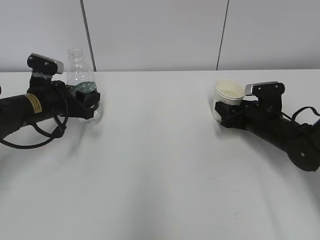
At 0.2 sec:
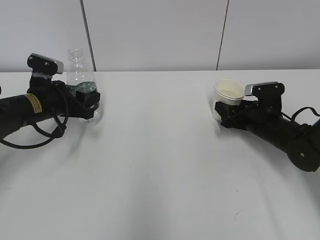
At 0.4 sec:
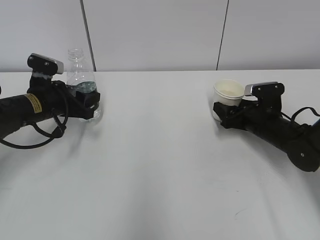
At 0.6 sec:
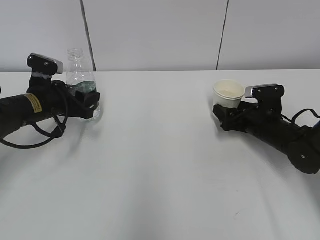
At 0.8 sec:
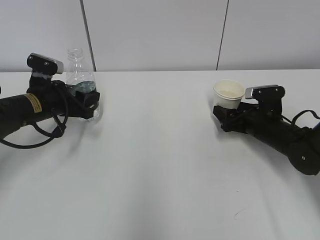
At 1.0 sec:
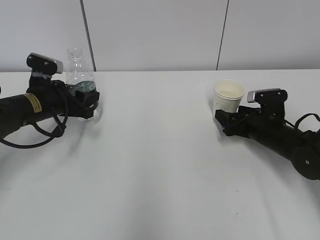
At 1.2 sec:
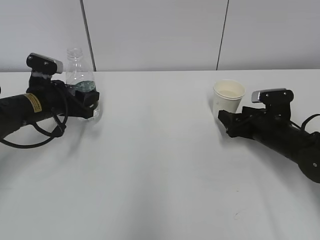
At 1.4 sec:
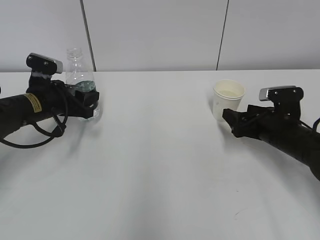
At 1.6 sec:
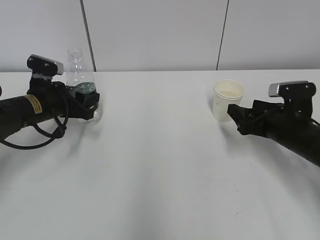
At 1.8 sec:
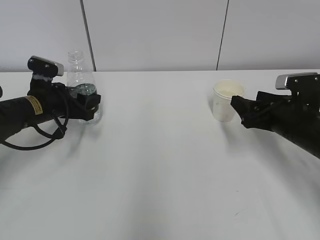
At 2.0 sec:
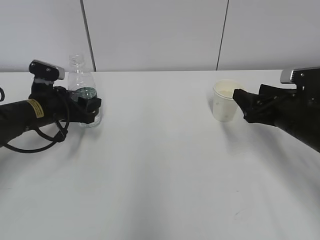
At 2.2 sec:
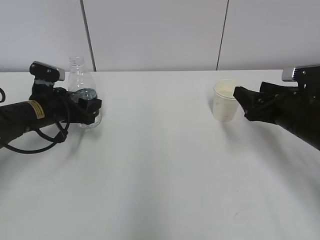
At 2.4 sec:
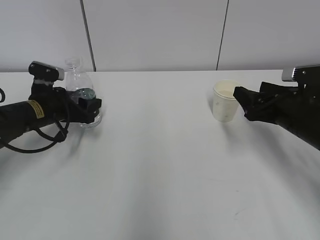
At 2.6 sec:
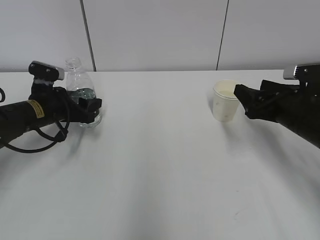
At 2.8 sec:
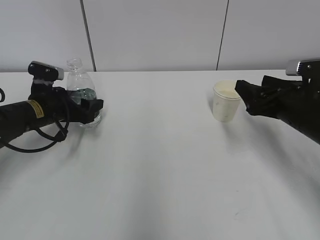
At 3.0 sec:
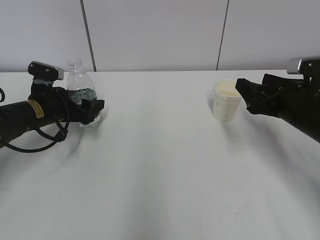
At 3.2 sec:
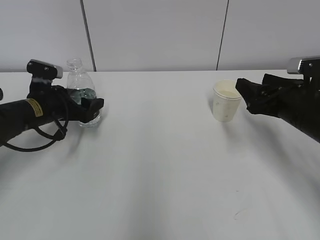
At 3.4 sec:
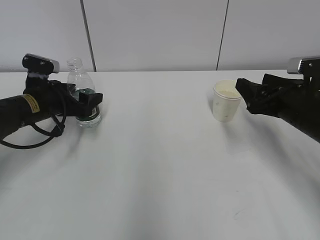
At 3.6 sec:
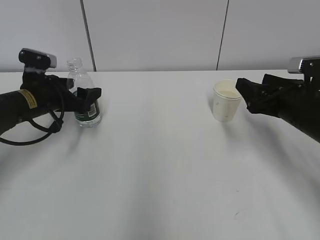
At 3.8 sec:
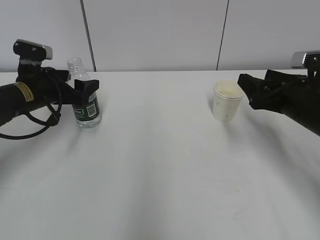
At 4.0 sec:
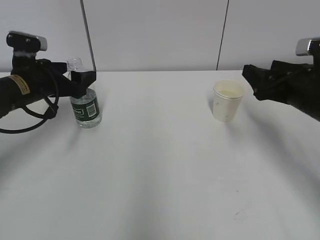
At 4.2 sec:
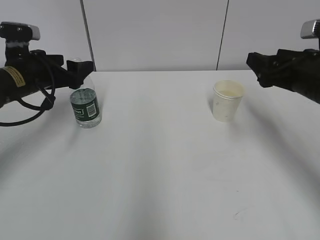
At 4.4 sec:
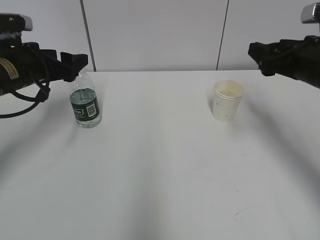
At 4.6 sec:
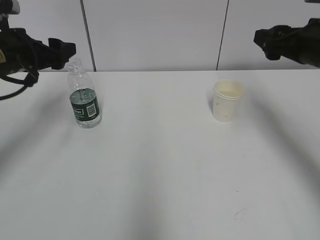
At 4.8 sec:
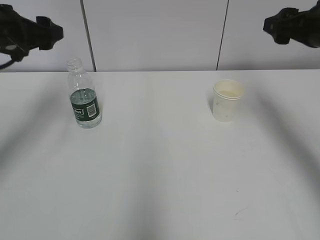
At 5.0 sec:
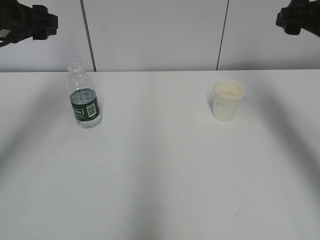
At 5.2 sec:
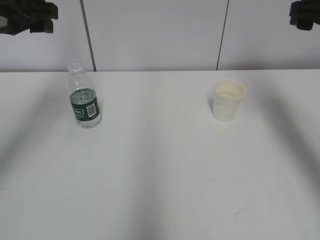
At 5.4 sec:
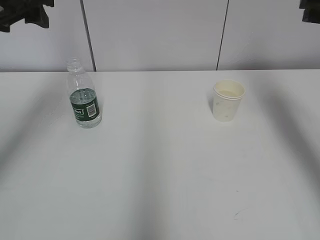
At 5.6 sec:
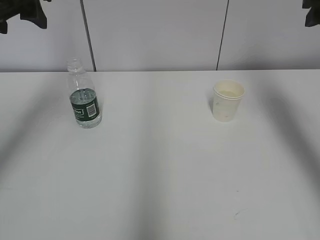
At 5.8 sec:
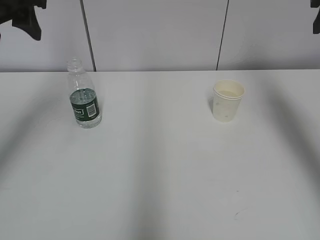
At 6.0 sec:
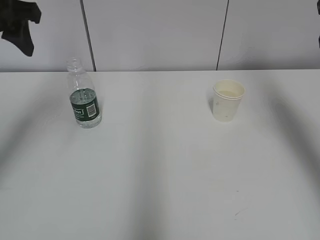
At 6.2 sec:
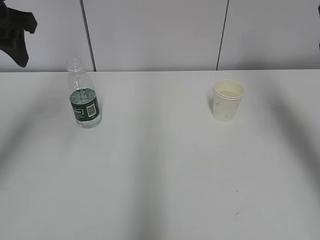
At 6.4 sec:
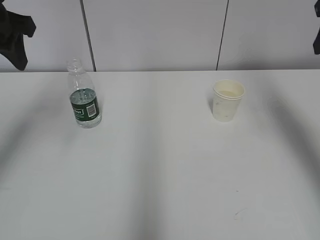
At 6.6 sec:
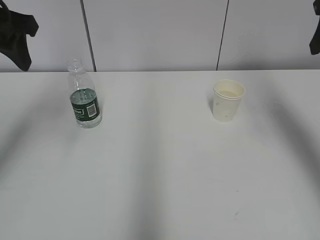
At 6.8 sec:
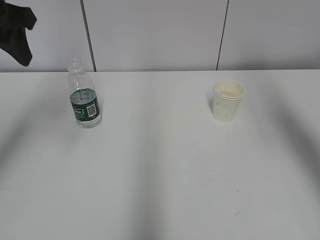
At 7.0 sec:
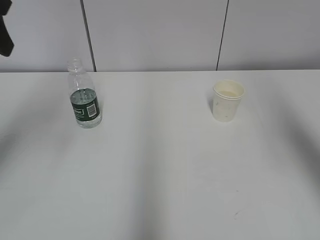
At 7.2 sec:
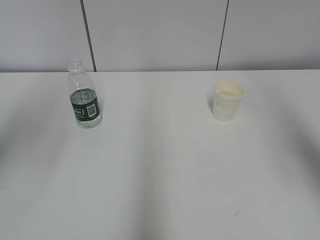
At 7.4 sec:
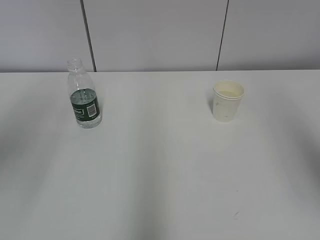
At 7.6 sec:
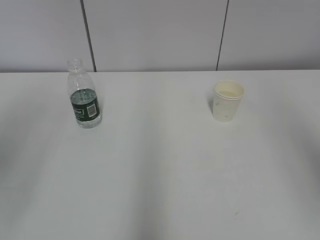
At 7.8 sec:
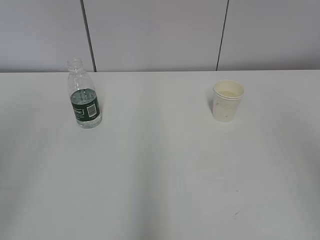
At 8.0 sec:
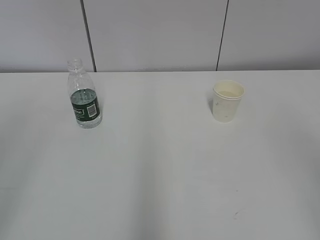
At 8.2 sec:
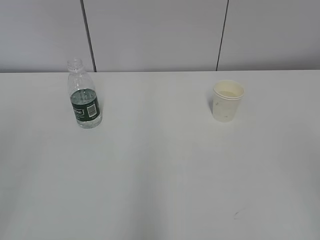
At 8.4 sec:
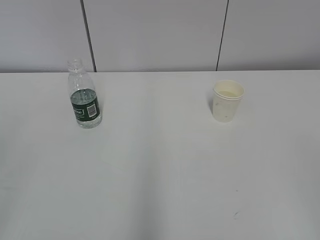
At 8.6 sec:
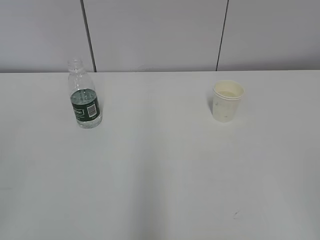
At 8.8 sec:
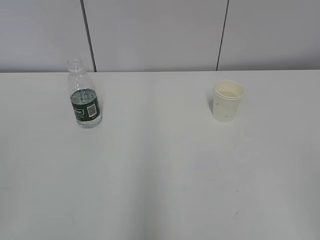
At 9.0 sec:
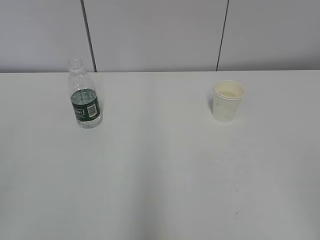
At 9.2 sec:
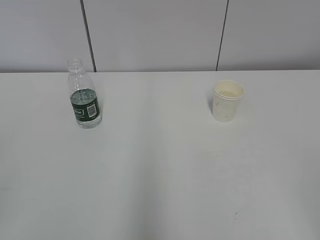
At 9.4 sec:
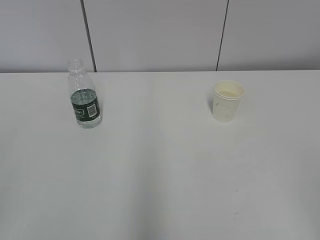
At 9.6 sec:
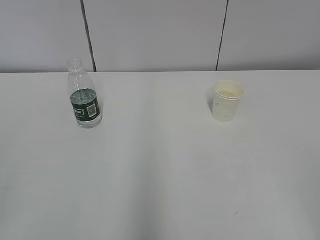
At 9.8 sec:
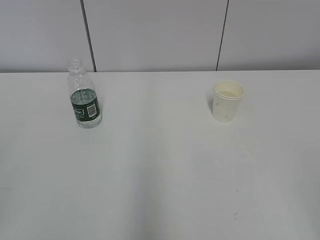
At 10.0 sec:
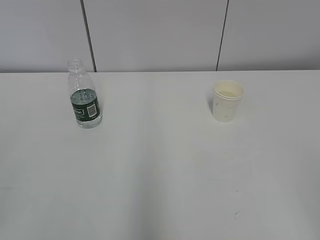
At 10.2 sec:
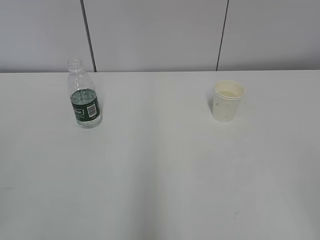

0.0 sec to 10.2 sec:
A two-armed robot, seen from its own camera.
0.0 sec to 1.4 sec: The right gripper moves some 5 cm, and opens.
1.4 sec to 3.0 sec: The left gripper opens its fingers; the right gripper moves upward, approximately 10 cm.
3.0 sec to 4.4 sec: The grippers both shift upward by roughly 10 cm.
4.4 sec to 5.8 sec: Both grippers travel together upward, approximately 15 cm.
5.8 sec to 7.2 sec: The two grippers go roughly 15 cm backward.
7.2 sec to 8.8 sec: The right gripper heads backward and downward, covering some 25 cm.

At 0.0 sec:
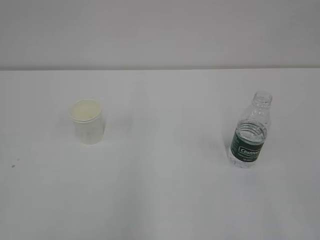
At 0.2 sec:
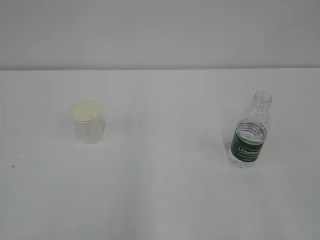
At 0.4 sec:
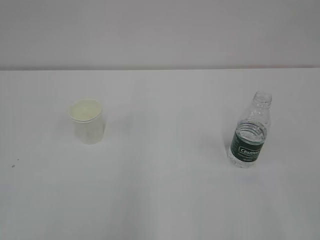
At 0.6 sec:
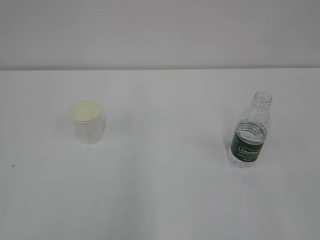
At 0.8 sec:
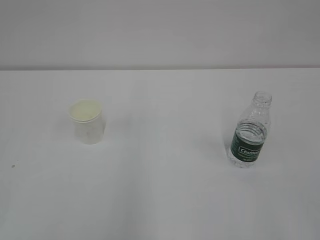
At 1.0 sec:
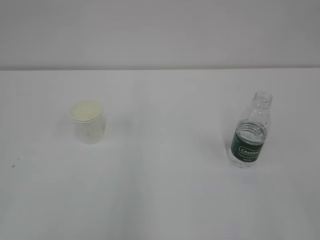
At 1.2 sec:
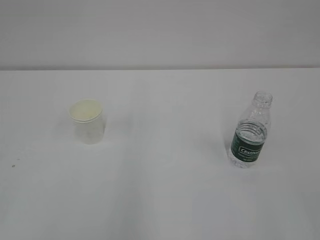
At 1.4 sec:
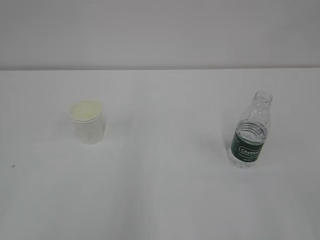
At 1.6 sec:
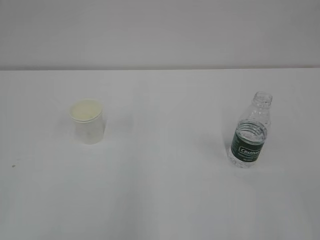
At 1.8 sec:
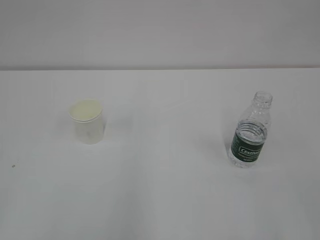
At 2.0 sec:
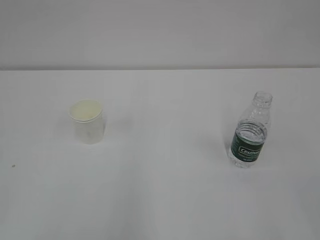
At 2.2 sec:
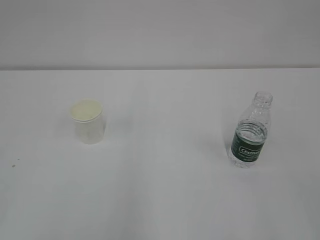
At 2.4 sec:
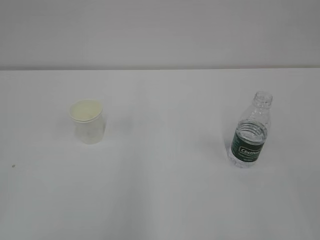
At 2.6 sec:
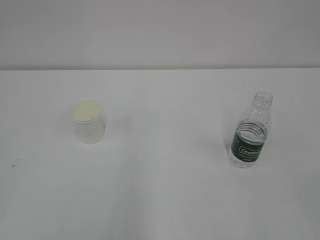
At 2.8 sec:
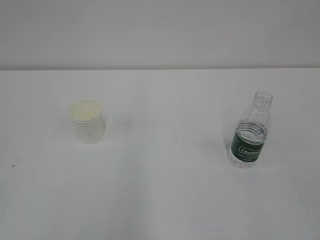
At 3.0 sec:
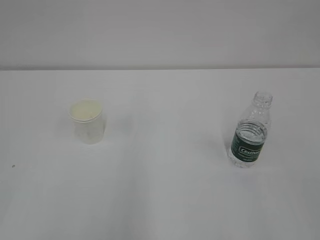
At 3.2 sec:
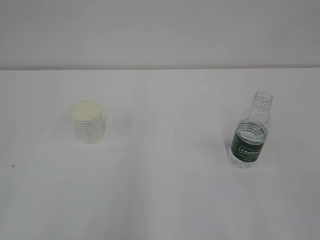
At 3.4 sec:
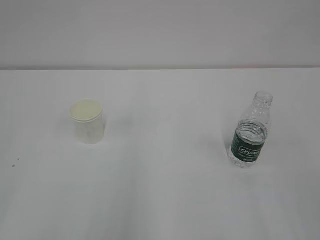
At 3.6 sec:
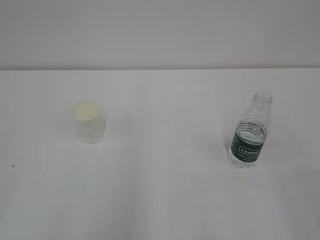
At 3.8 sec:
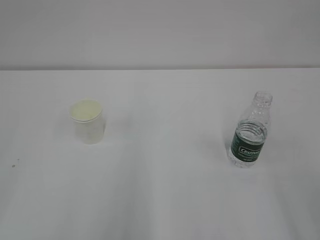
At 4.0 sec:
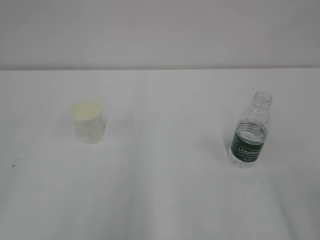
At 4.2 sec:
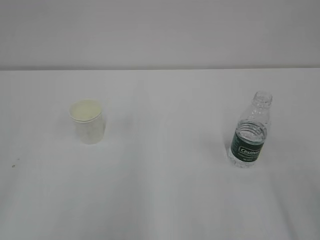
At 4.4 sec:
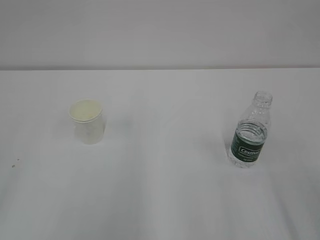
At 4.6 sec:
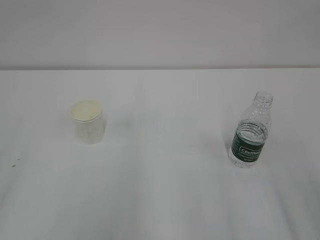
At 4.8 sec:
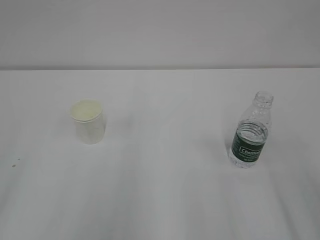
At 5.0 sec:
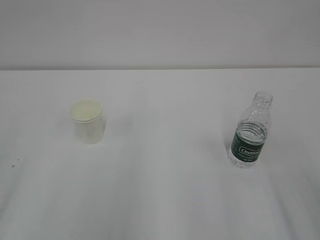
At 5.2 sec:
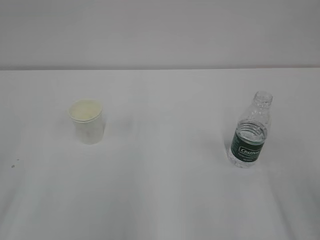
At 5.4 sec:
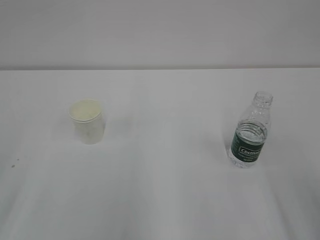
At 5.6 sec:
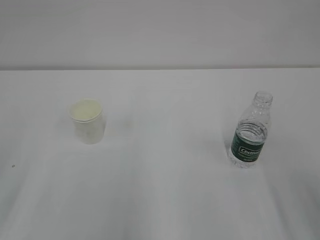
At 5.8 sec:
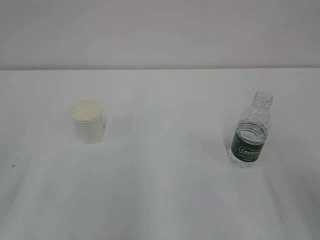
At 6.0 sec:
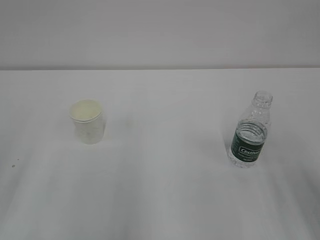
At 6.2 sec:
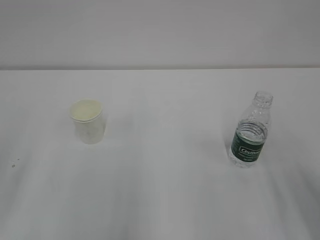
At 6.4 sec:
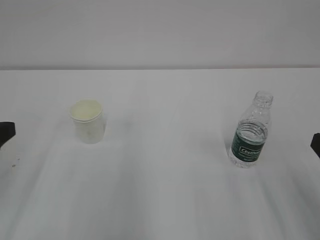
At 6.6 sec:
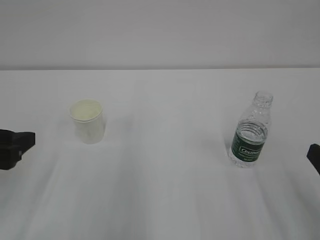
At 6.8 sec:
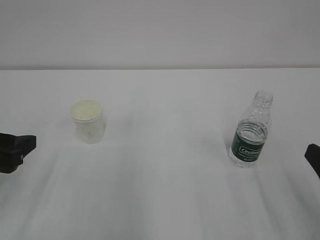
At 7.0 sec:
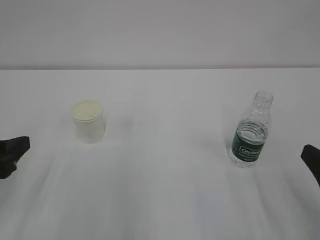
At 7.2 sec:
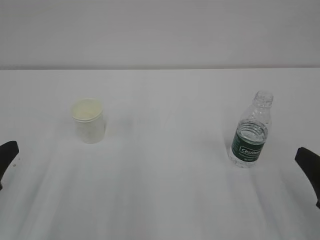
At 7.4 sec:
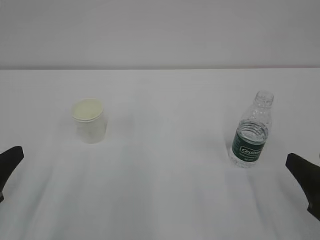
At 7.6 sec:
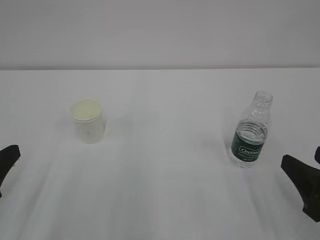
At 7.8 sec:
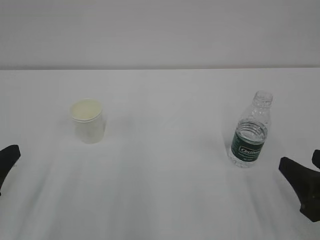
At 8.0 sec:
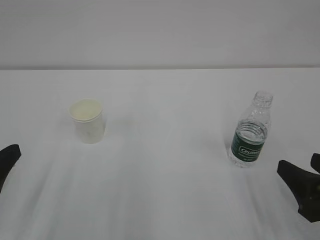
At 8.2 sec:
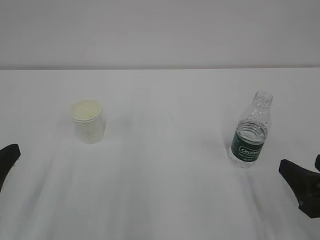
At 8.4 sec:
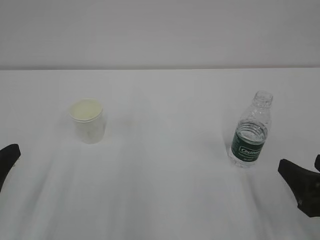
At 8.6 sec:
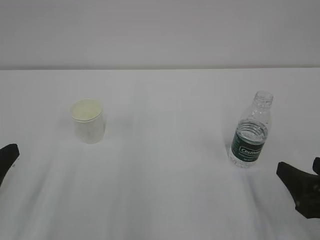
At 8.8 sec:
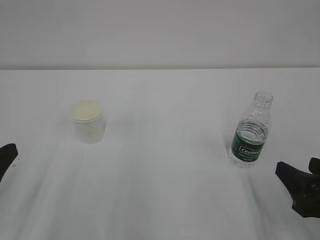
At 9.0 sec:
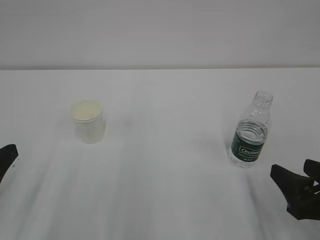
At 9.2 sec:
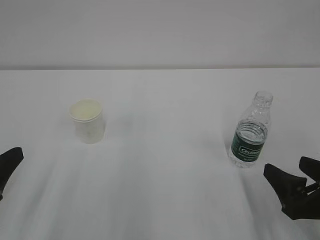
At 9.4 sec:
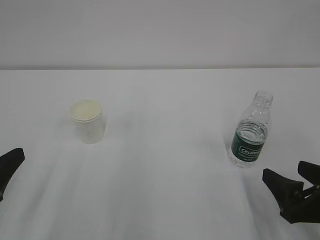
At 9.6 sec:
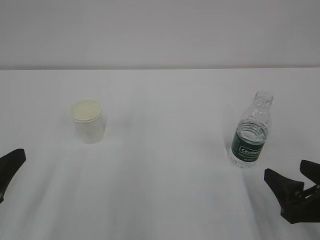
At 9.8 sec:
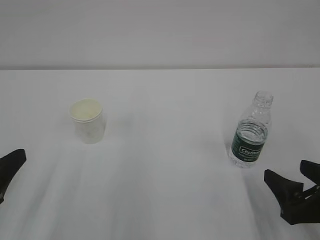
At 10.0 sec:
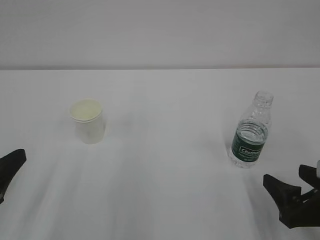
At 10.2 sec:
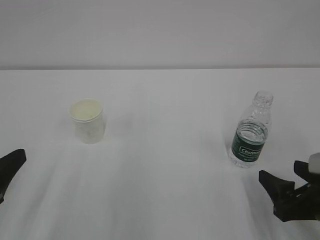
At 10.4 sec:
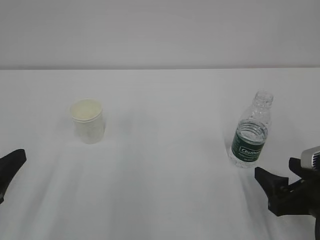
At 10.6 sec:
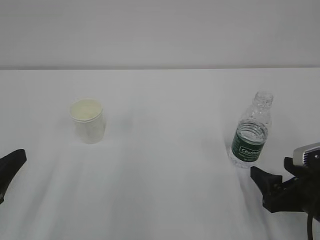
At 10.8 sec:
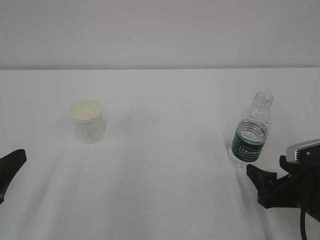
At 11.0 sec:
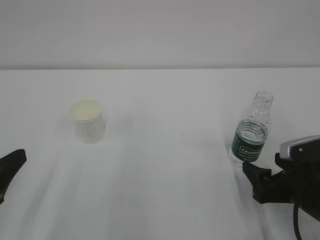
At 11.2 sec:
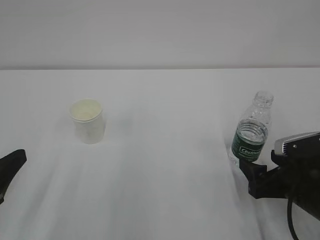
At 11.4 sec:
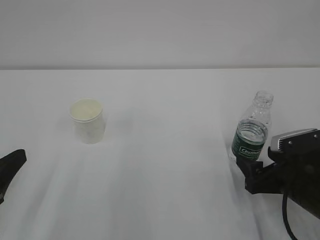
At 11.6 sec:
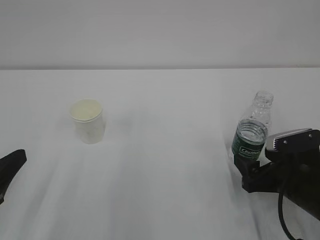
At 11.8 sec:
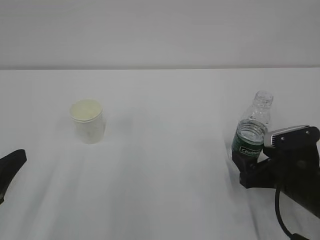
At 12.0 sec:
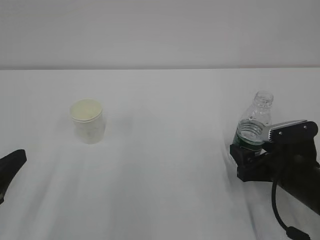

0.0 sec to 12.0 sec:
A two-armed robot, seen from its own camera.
6.0 sec to 7.6 sec: The two grippers go about 5 cm downward. The left gripper closes.
9.0 sec to 10.4 sec: The left gripper opens its fingers.
10.4 sec to 12.0 sec: The right gripper moves forward, approximately 5 cm.
